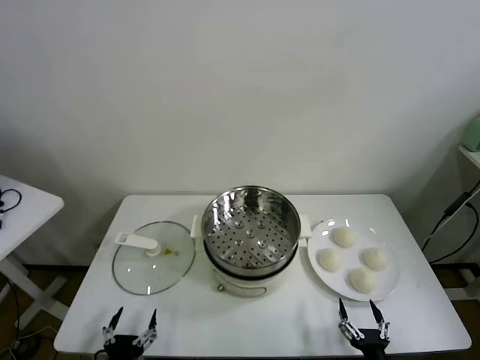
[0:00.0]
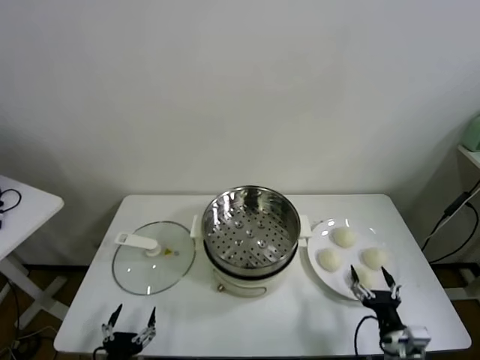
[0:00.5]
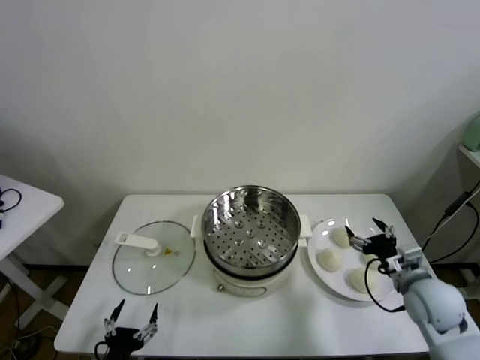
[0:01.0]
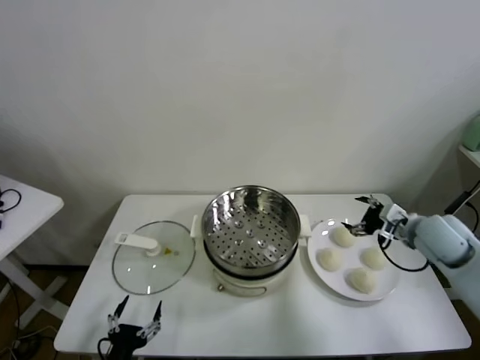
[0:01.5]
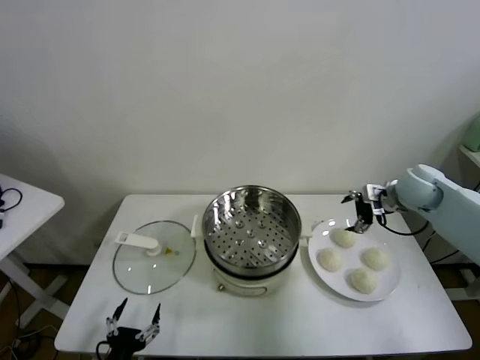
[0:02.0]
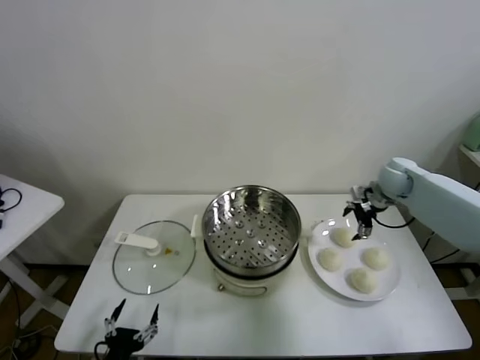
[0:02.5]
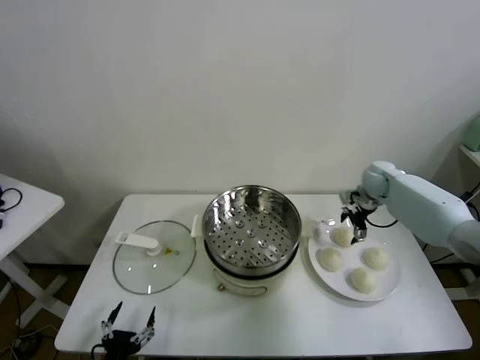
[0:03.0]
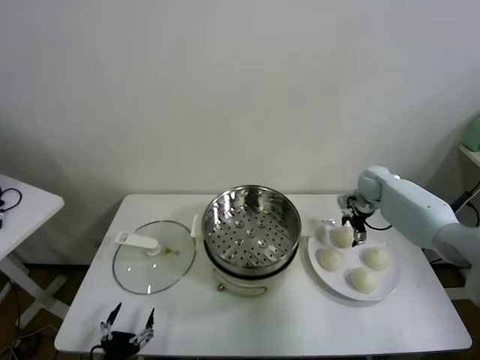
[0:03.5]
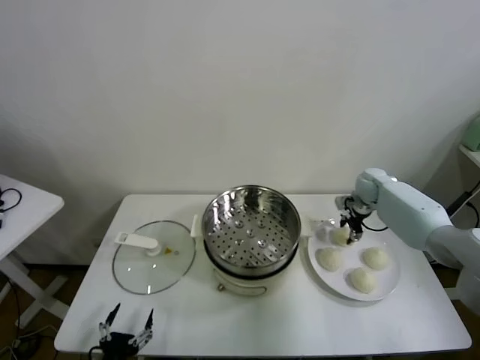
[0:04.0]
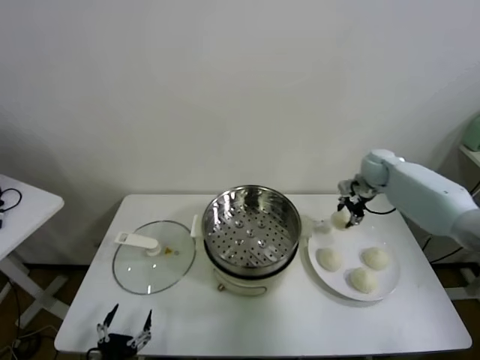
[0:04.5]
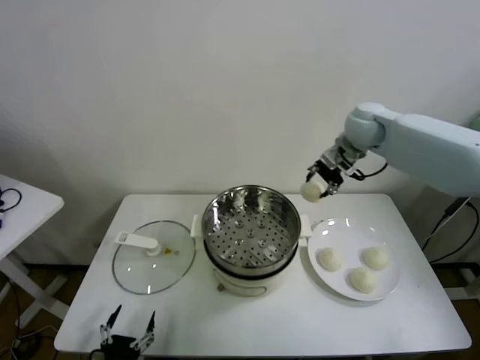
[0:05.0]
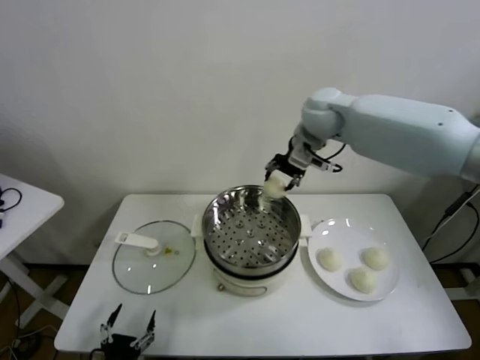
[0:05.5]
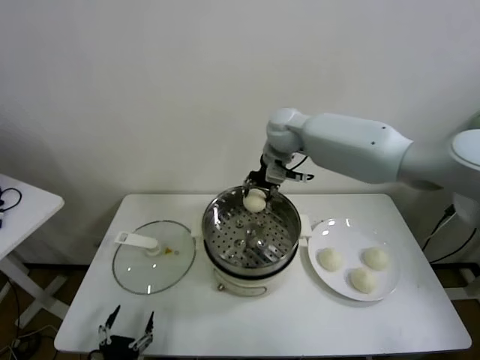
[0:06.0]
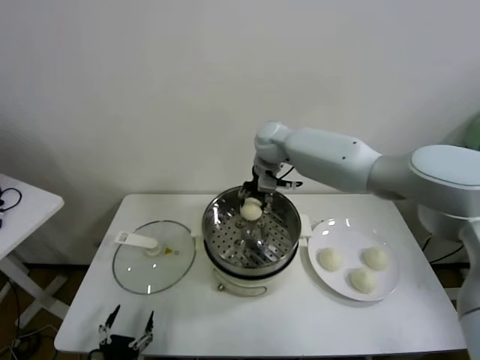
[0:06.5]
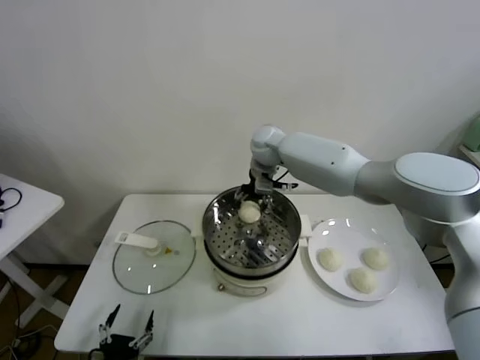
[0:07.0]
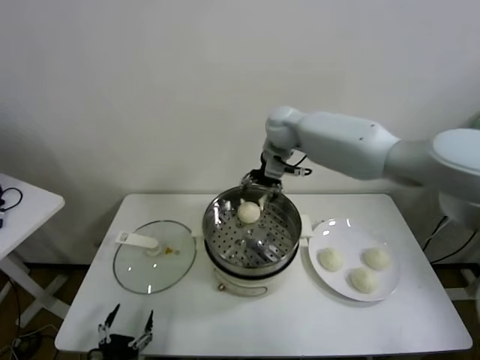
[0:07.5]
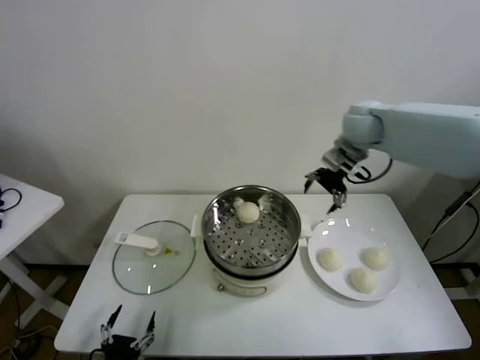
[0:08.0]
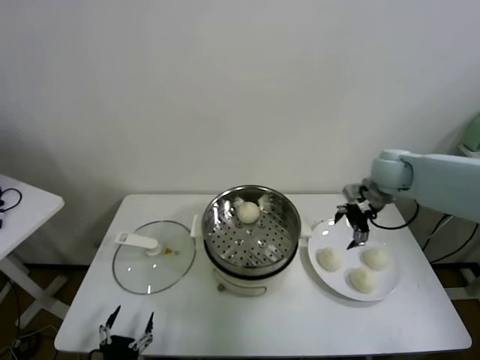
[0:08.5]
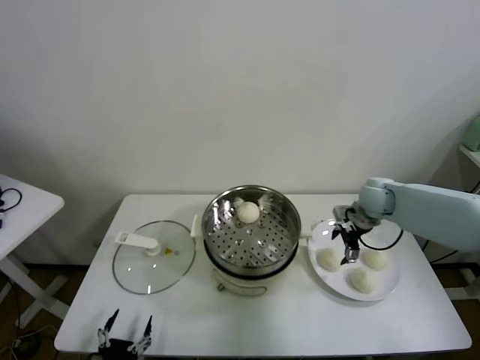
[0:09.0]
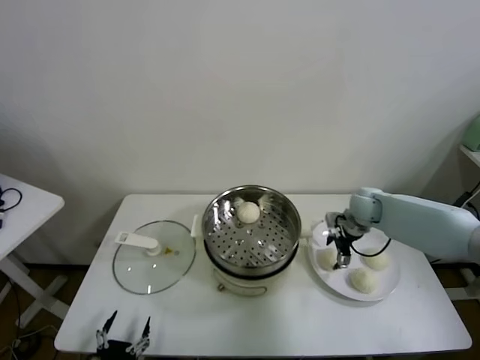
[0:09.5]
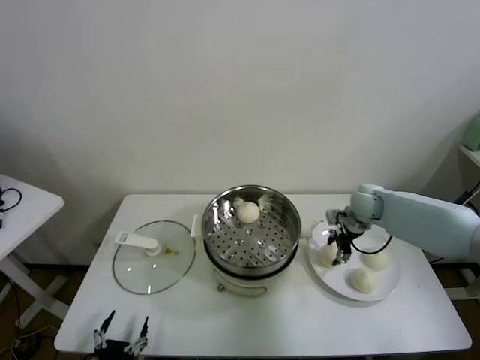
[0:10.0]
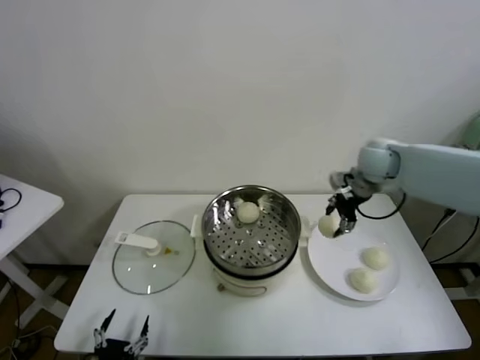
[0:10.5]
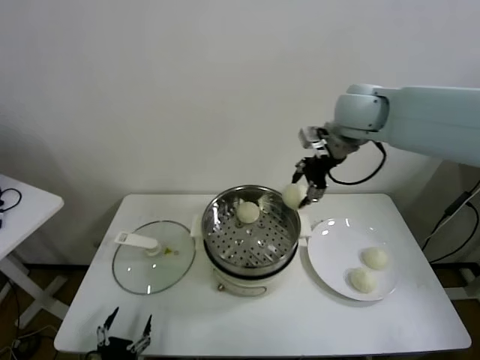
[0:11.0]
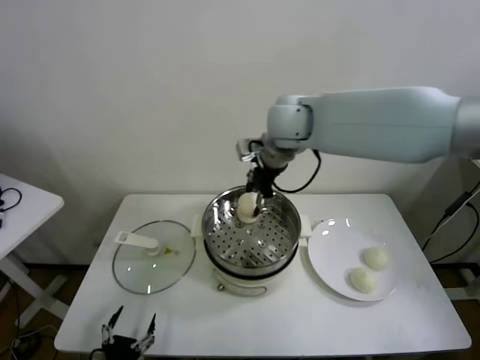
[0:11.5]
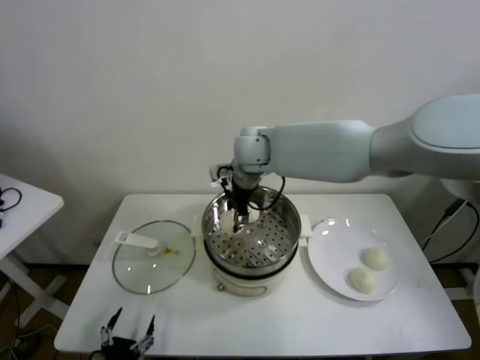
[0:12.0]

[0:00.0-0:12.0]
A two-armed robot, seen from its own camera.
Task of the whole recording: take steamed baozi put them in steamer.
Step, 0:00.0 to 0:03.5: Grasp the baozi in the plate with right gripper.
Step, 0:04.0 to 0:07.0: Place the baozi on the steamer with right gripper.
Step, 0:07.5 to 0:09.5: Grasp the baozi in the plate with right gripper.
0:02.0 to 0:04.0: The right gripper is displaced downward and forward by about 15 cm, and closes.
0:04.0 to 0:06.0: The right gripper shifts approximately 35 cm to the left and upward.
0:06.0 to 0:08.0: The right gripper is displaced to the right by roughly 20 cm, and opens its fingers.
0:08.0 to 0:10.0: The right gripper moves downward, approximately 20 cm, and closes its fingers.
0:10.0 to 0:12.0: The right gripper travels to the left and upward by approximately 35 cm.

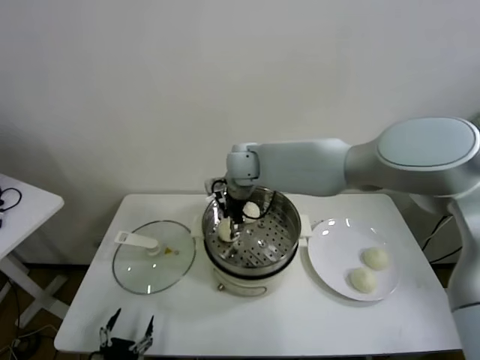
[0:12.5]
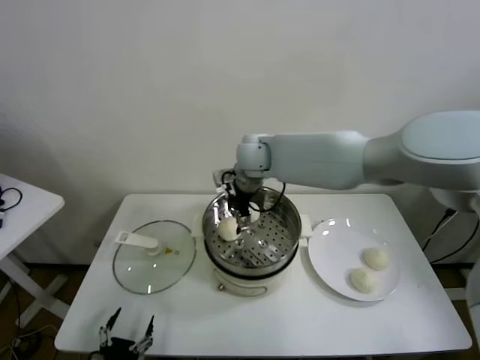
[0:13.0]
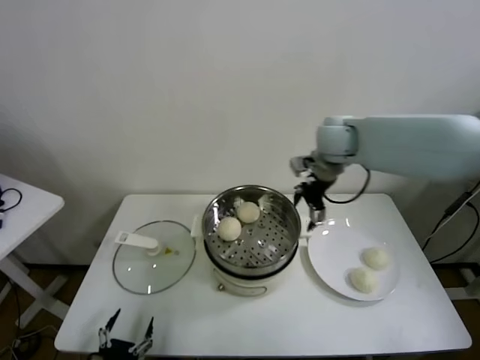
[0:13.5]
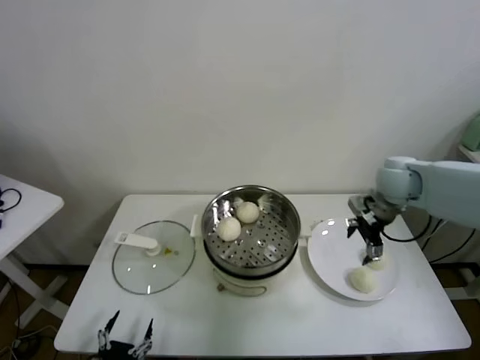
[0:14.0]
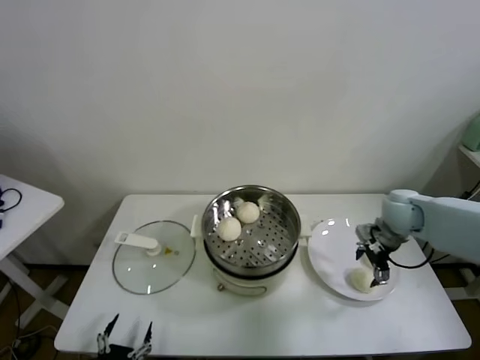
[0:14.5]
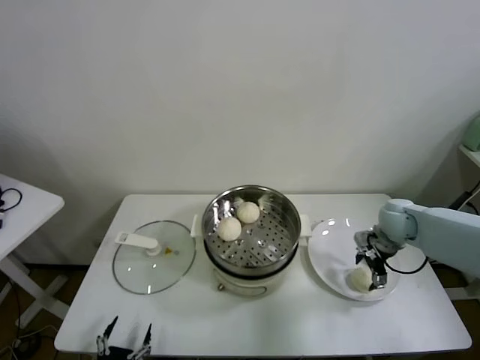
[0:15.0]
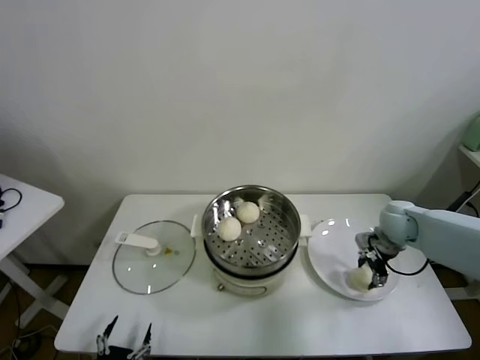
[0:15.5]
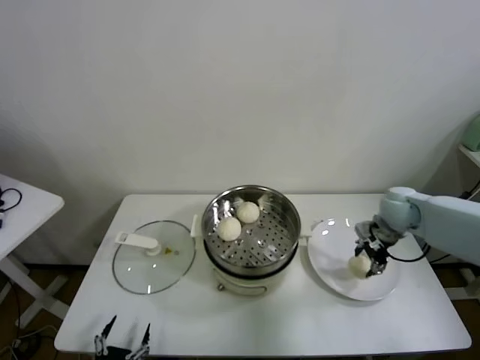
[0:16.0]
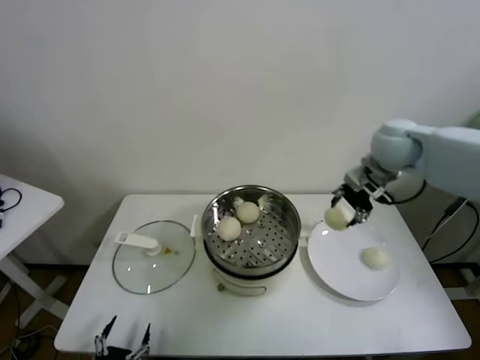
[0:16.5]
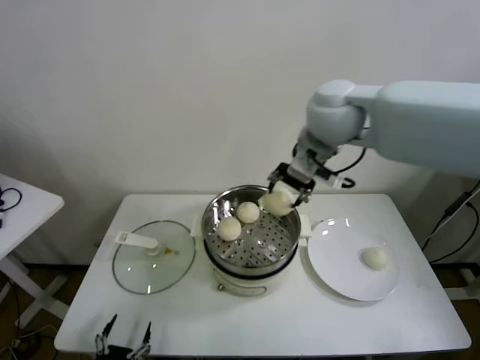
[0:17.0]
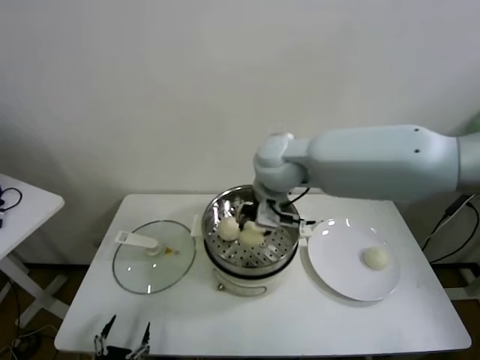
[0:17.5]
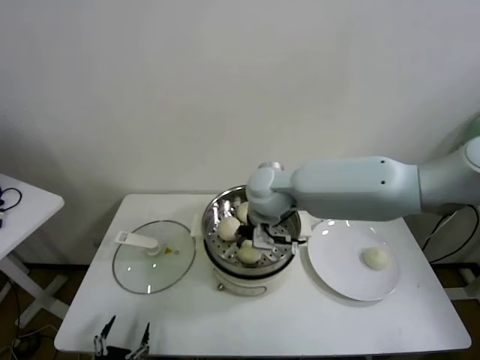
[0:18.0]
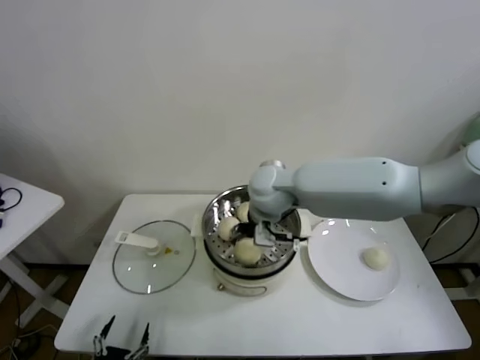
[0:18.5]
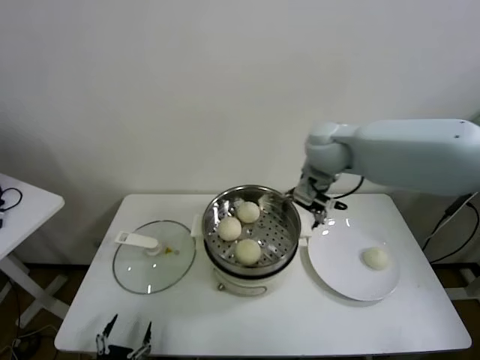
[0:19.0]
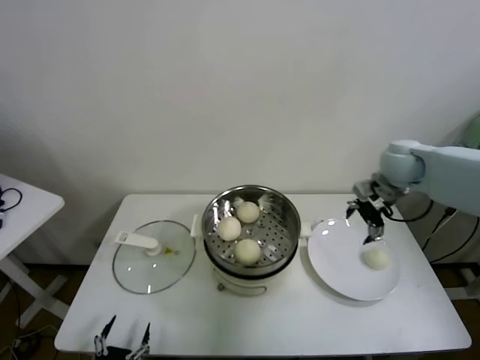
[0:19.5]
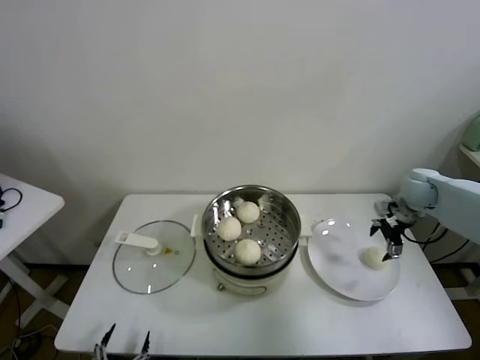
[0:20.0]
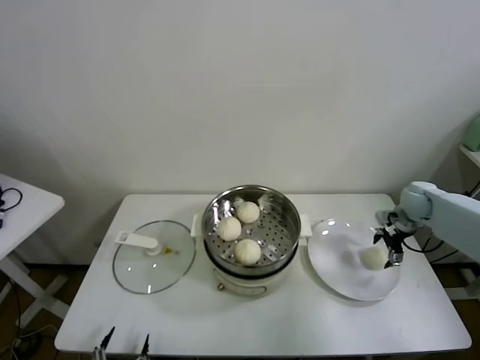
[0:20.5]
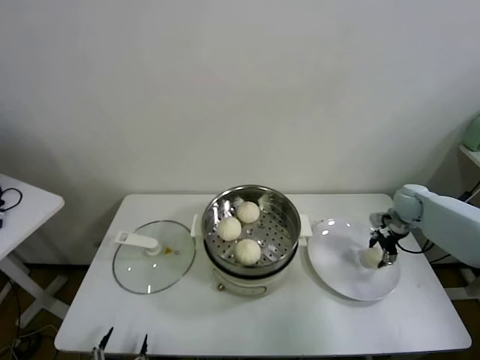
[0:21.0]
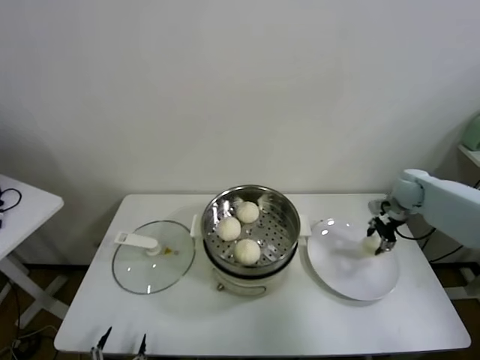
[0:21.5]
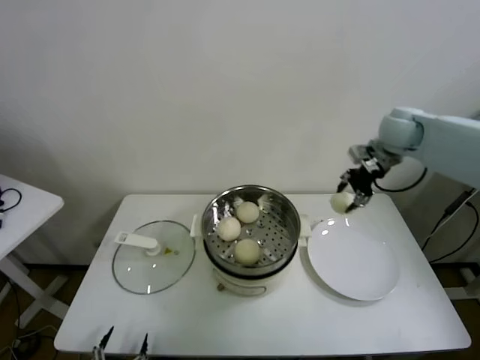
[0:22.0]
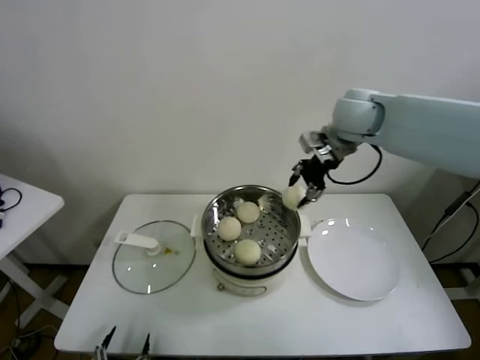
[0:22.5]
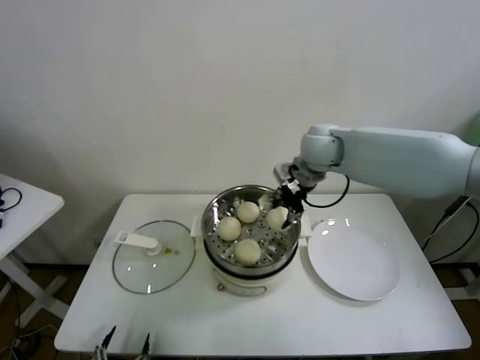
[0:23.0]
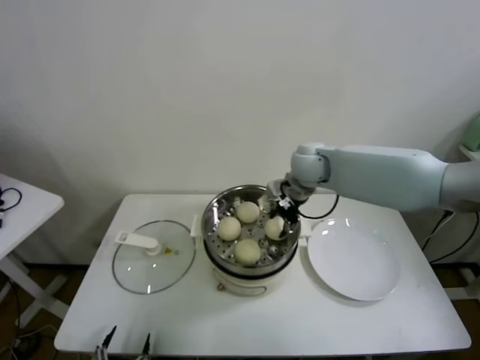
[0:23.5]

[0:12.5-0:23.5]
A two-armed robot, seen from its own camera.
Task of the whole recording: take steamed baozi put them in steamer.
Step, 0:13.0 to 0:15.5: Grasp the baozi in the plate with right gripper.
Step, 0:16.0 to 0:18.0: Place the baozi on the steamer with right gripper.
Step, 0:18.5 to 0:20.5: Grasp the baozi in the plate with right gripper.
0:12.5 to 0:14.5: The right gripper shifts about 35 cm to the right, and opens up.
0:14.5 to 0:16.0: The right gripper closes up.
0:16.0 to 0:18.0: The right gripper travels to the left by about 30 cm.
0:18.0 to 0:20.0: The right gripper travels to the right by some 40 cm, and opens its fingers.
0:20.0 to 0:21.5: The right gripper closes its fingers.
0:21.5 to 0:23.5: The right gripper moves to the left, about 30 cm.

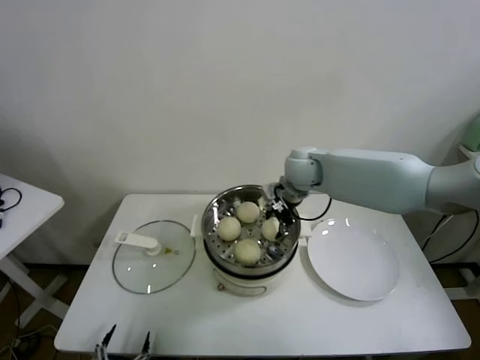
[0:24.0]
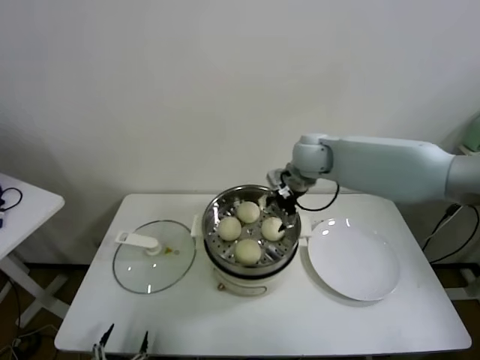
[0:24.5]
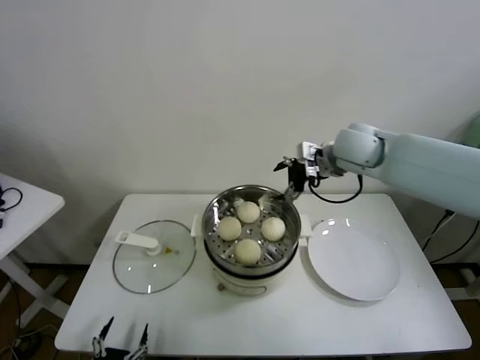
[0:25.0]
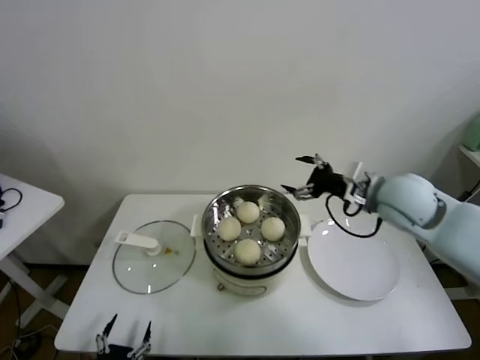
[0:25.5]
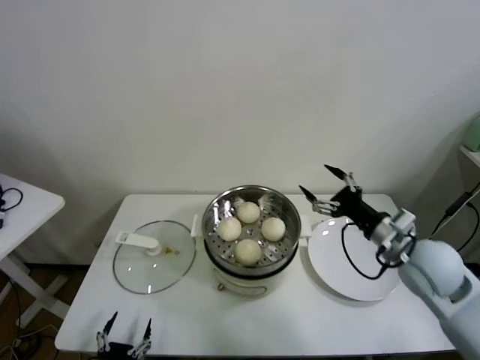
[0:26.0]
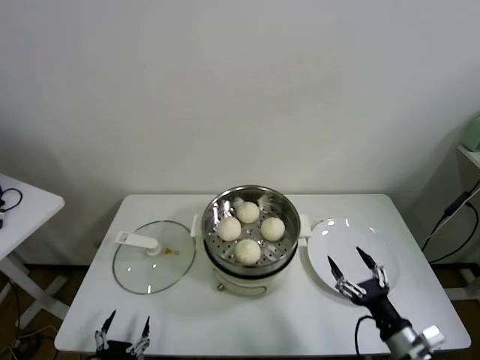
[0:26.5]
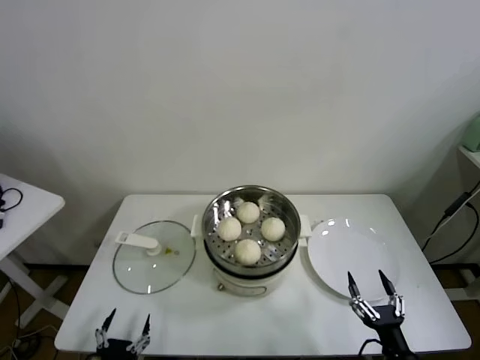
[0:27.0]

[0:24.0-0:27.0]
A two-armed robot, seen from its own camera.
Task of the whole recording: take steamed baozi put them in steamer.
0:24.0 to 0:25.5: The right gripper is displaced to the right and backward by approximately 20 cm, and opens up.
0:25.5 to 0:27.0: The right gripper goes about 40 cm backward and downward.
